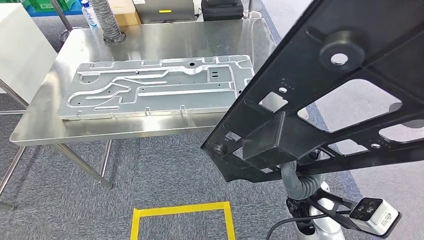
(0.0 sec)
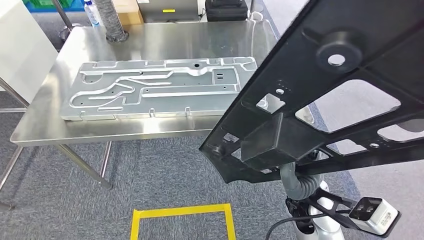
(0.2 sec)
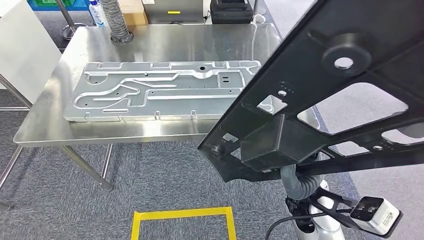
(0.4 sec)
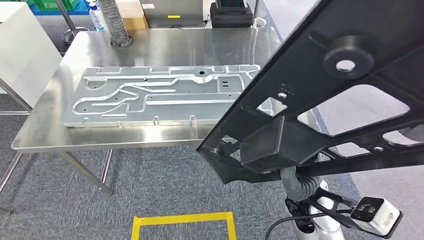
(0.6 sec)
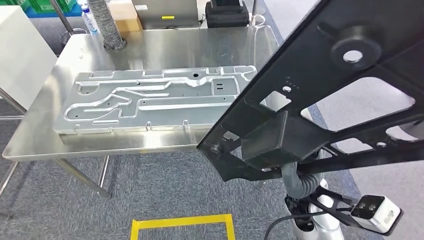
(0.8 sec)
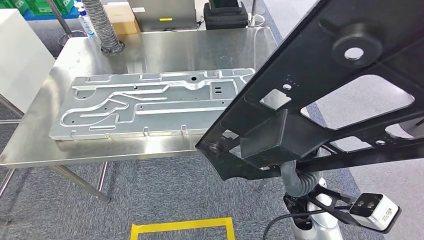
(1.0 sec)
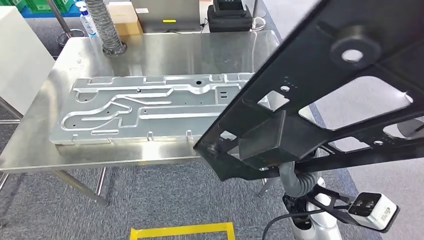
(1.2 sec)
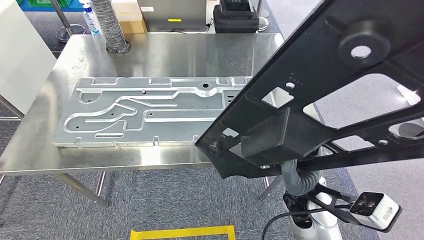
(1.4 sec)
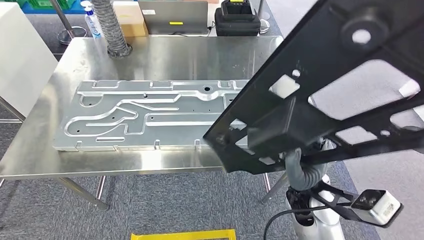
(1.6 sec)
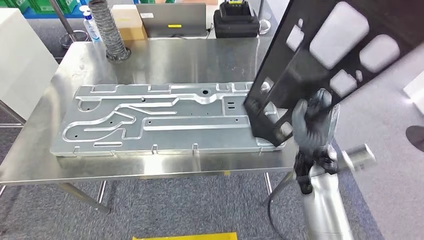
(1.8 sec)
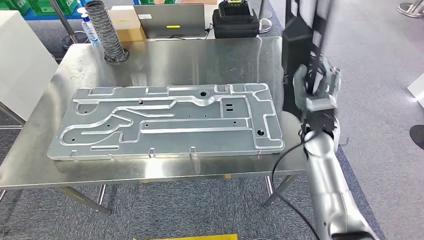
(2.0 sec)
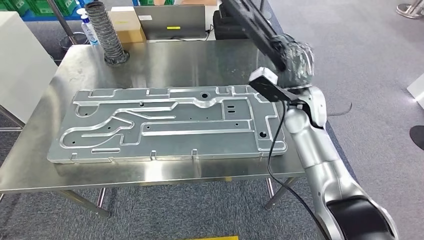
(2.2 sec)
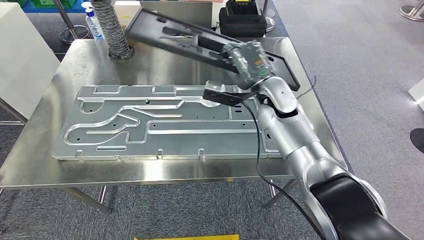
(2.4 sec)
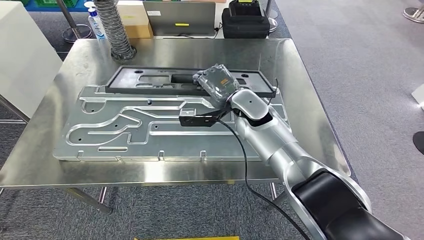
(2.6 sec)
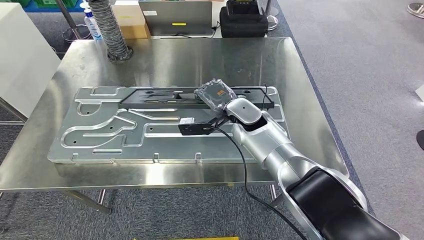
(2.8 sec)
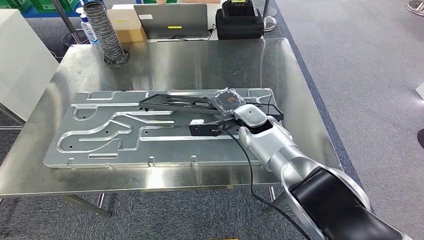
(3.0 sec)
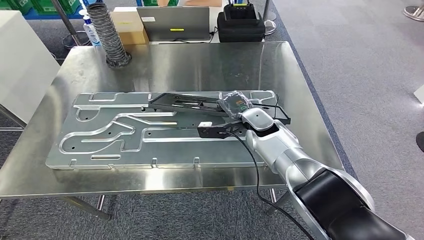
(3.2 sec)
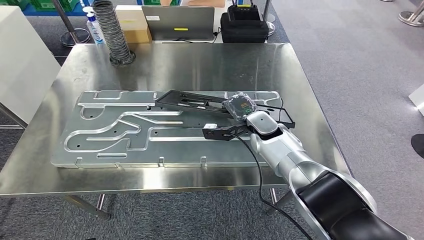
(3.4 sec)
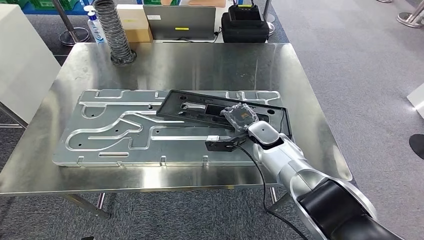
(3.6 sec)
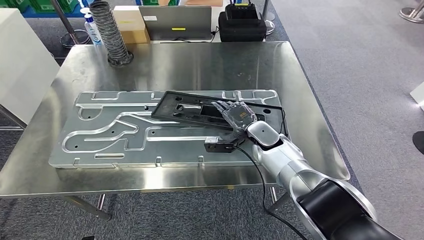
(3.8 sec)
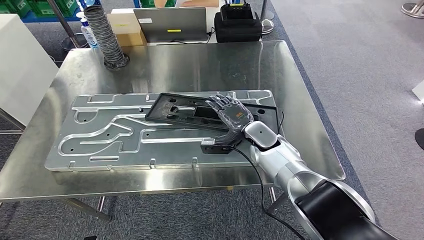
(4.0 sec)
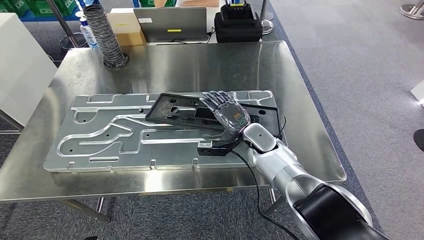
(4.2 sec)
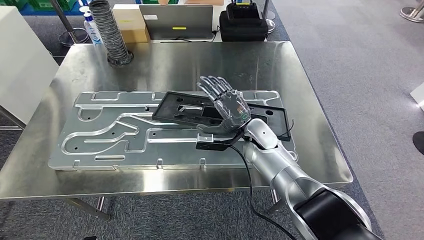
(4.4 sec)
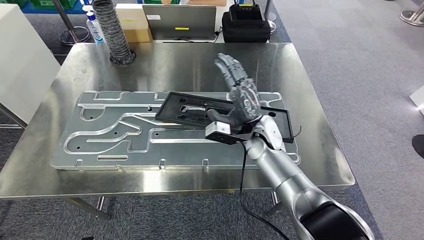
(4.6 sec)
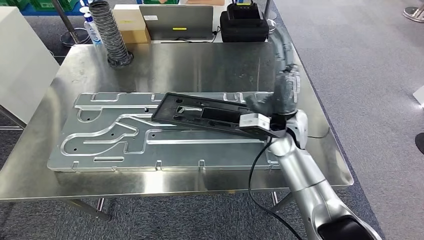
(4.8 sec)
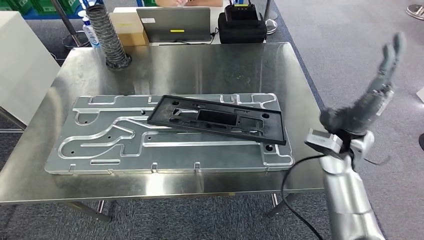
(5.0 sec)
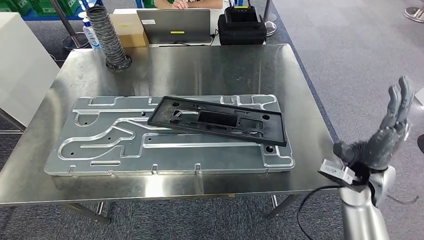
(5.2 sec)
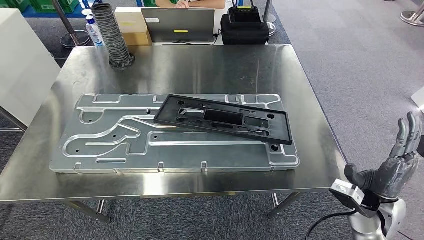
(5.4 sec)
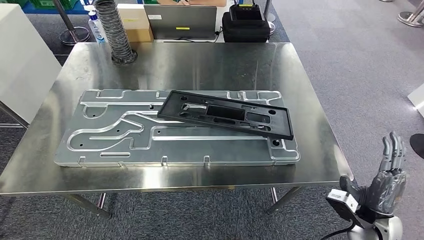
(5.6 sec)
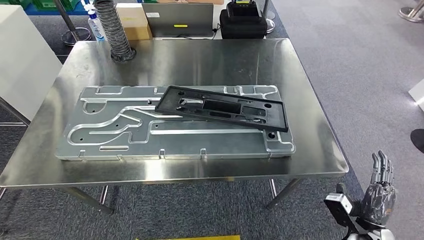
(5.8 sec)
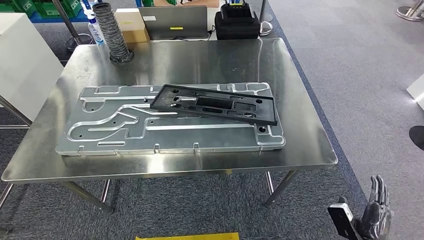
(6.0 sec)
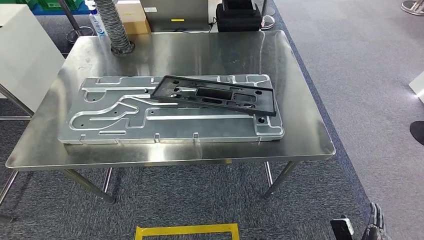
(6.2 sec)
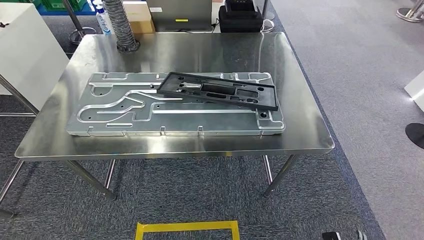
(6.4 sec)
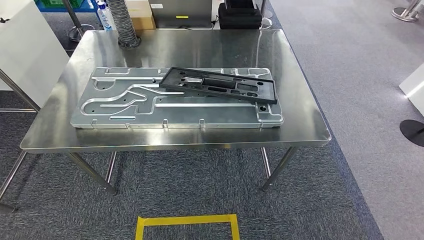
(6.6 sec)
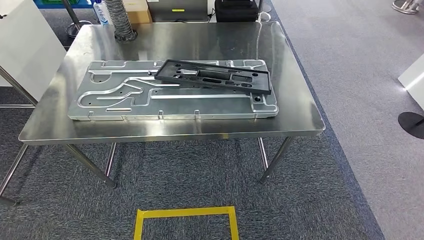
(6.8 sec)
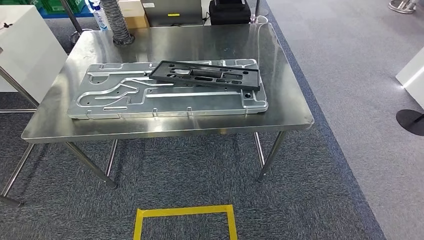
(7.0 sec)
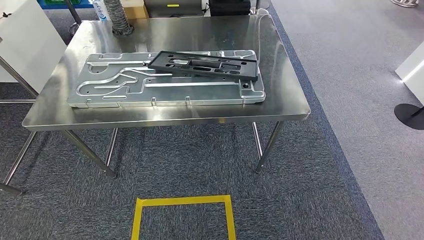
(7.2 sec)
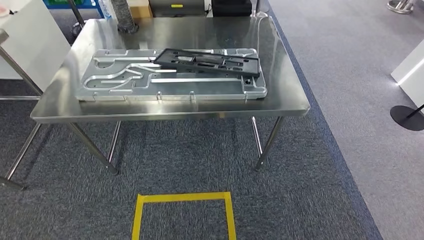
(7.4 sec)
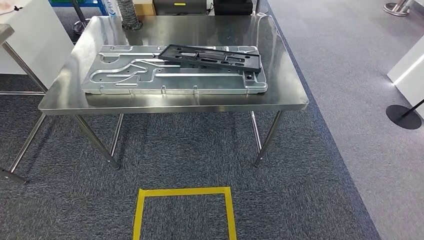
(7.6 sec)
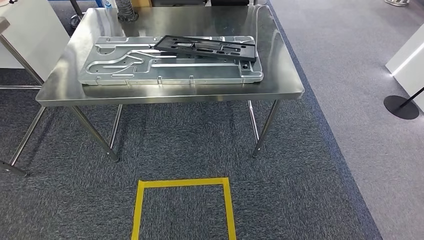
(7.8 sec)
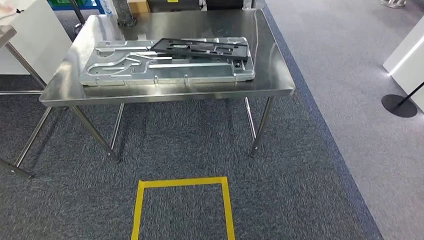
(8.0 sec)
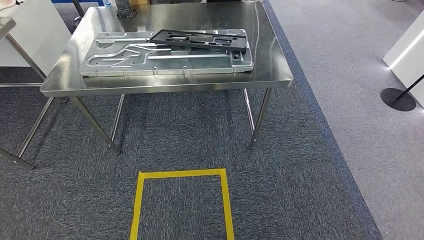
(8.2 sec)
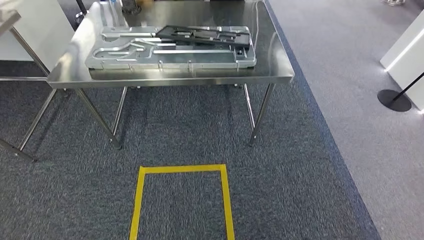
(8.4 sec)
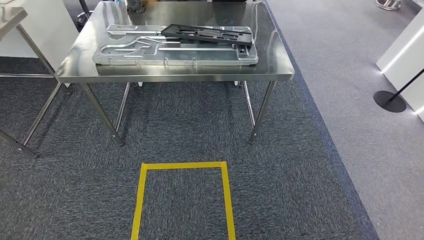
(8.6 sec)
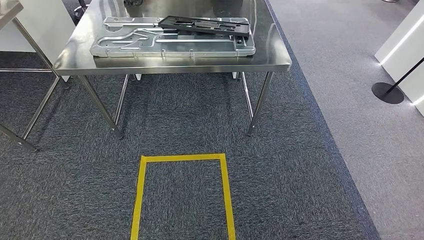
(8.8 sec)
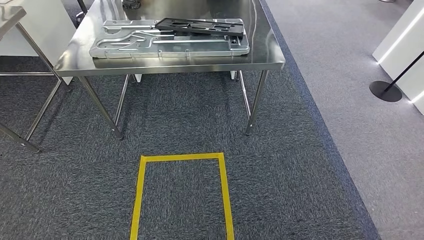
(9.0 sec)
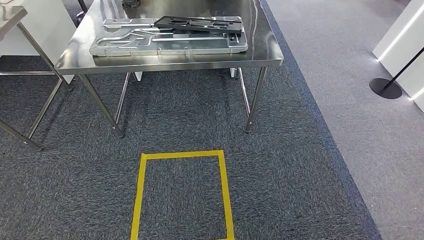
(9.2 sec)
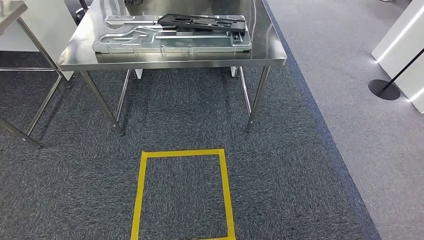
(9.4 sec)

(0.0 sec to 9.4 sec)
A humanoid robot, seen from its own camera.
Step, 1.6 sec - 4.6 sec: Insert the large material into the corresponding slot on the workbench.
Step, 6.8 sec - 9.4 sec: Return to the initial position at the shelf.
